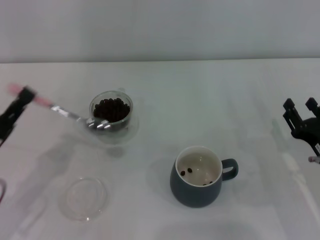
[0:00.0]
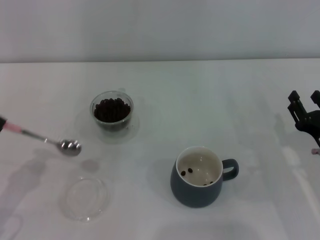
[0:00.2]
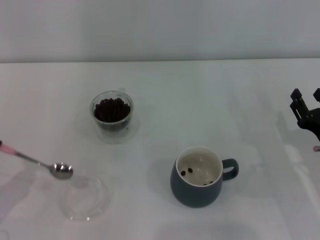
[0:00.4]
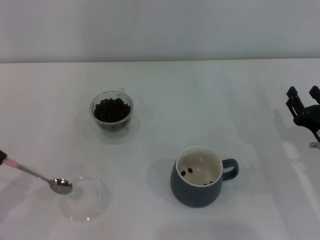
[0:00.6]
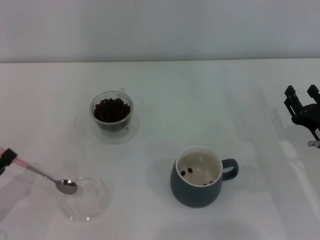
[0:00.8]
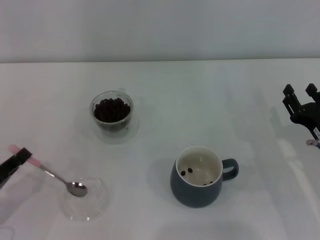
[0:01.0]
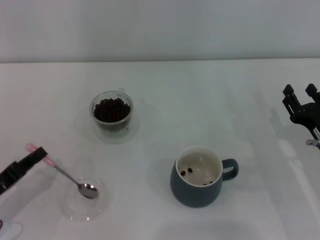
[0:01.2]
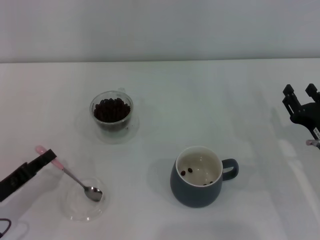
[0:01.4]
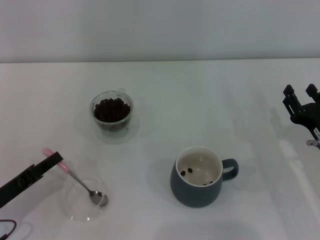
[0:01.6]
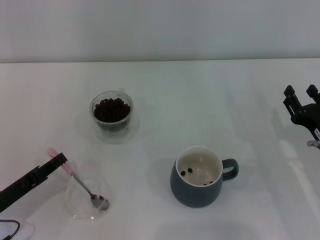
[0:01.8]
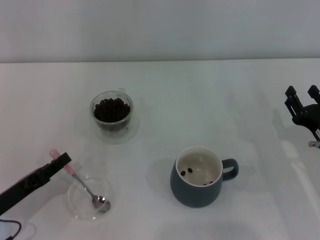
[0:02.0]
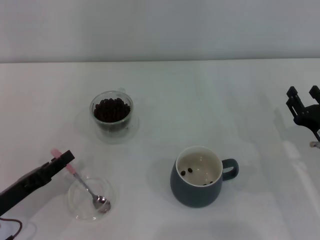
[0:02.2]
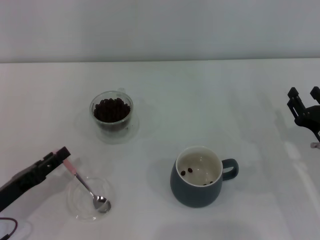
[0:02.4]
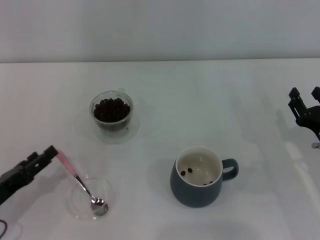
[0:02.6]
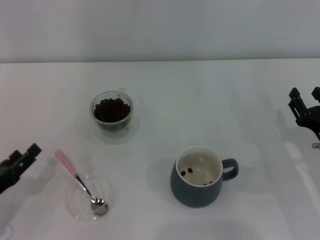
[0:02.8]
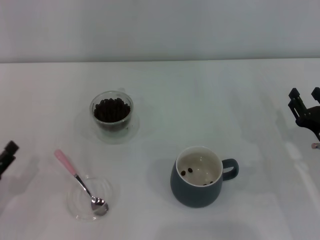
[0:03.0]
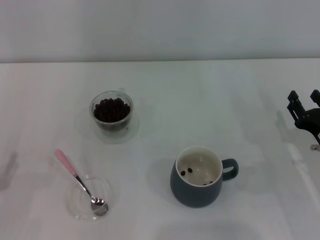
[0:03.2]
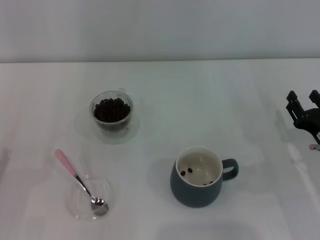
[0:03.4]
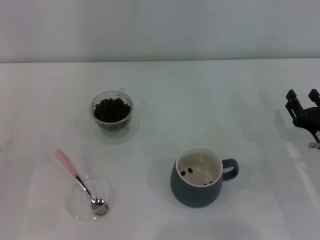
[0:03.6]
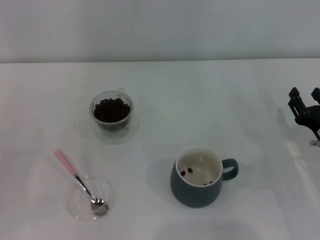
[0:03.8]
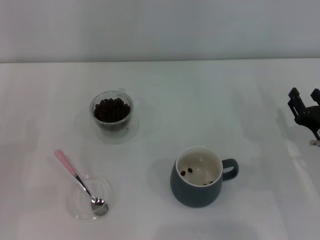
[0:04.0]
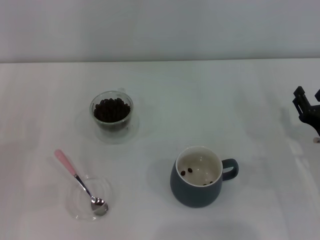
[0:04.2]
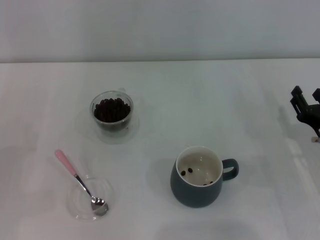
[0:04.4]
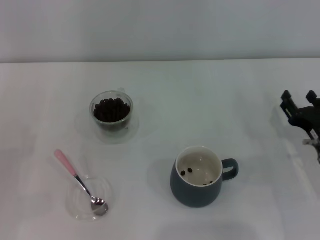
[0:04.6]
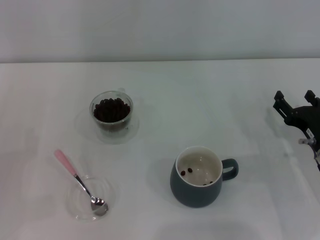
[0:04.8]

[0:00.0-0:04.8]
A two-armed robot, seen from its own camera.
Task of the whole recording: Use a pink spoon to take out the coffee beans from the glass and pour them into the gray cup.
Step, 0:00.0 to 0:02.6: Place the spoon back in its original place with the right gripper.
0:01.6 to 0:03.2: The left gripper shifts by about 5 cm, and opens.
